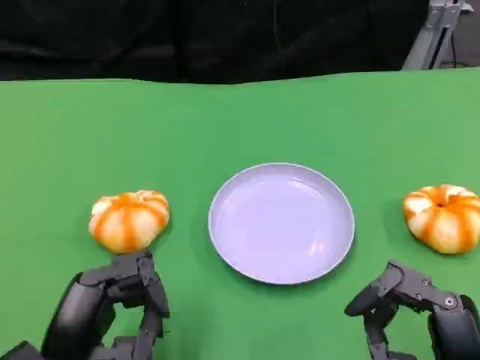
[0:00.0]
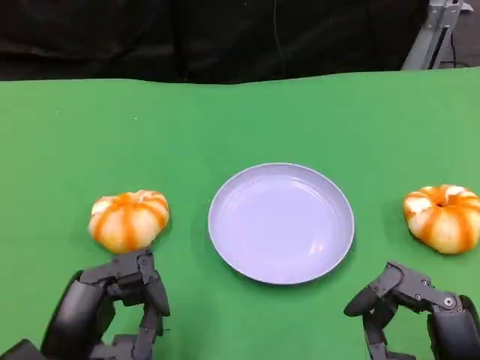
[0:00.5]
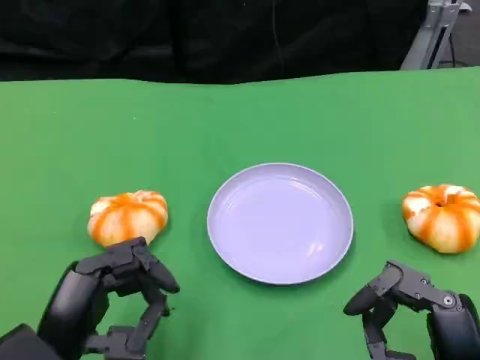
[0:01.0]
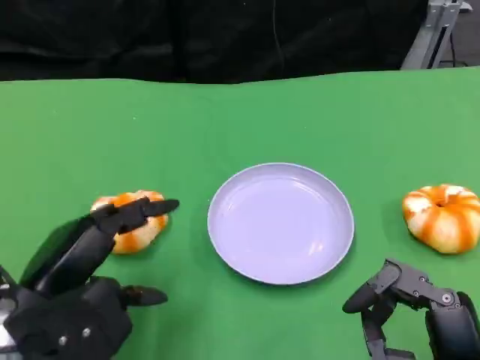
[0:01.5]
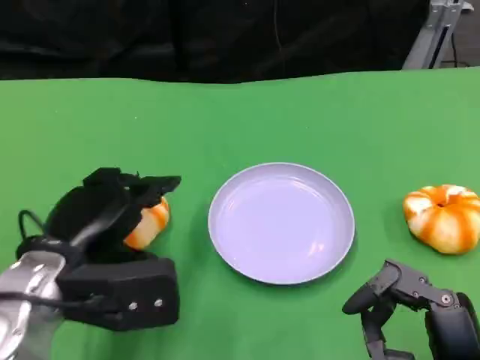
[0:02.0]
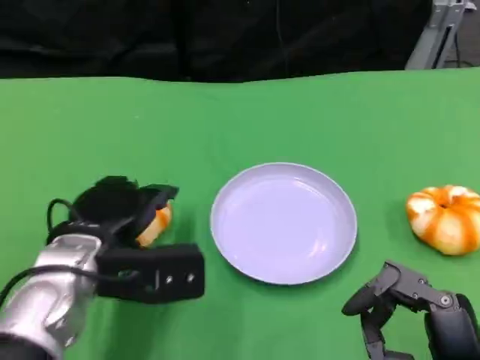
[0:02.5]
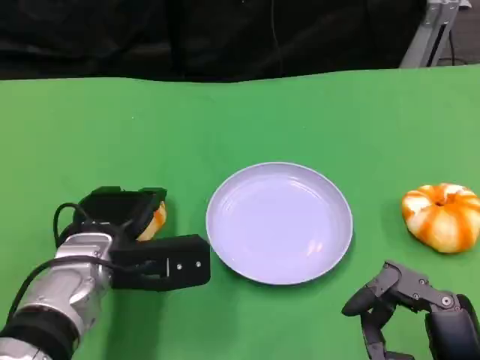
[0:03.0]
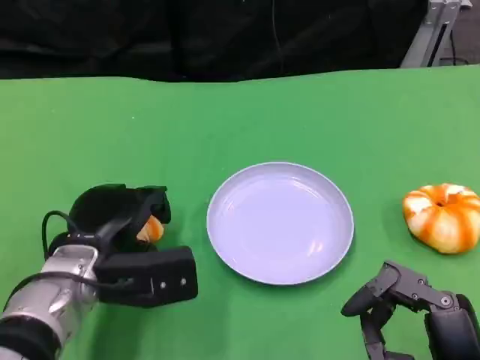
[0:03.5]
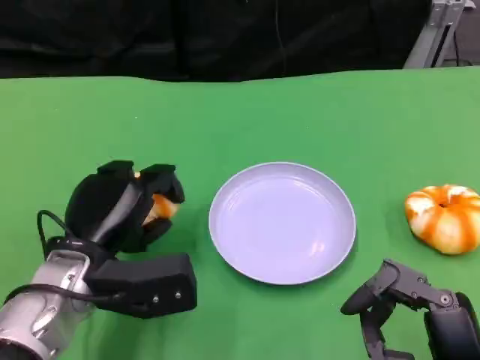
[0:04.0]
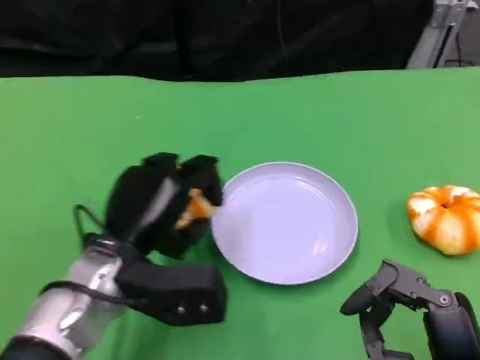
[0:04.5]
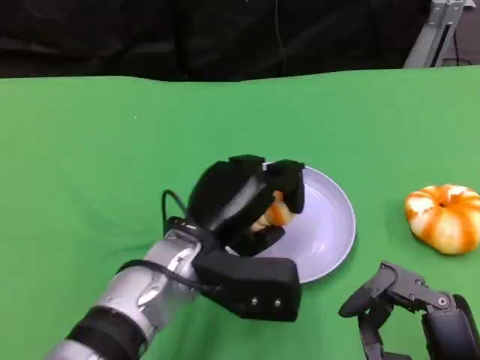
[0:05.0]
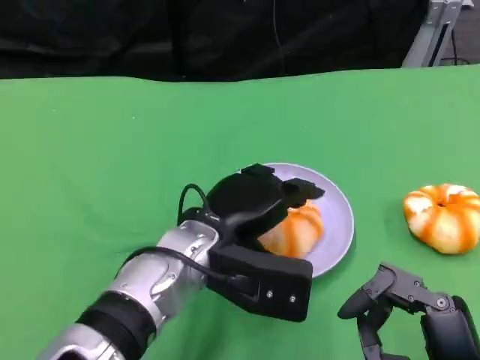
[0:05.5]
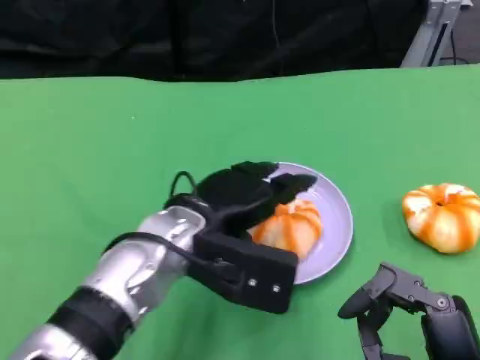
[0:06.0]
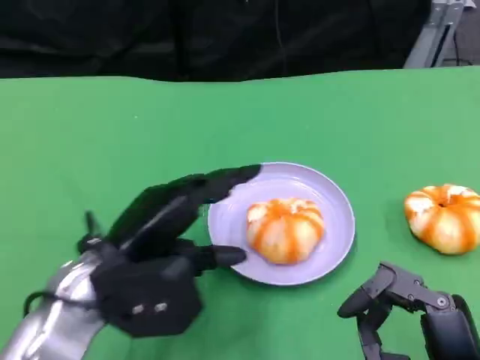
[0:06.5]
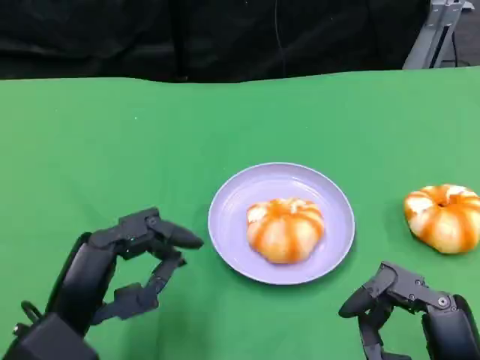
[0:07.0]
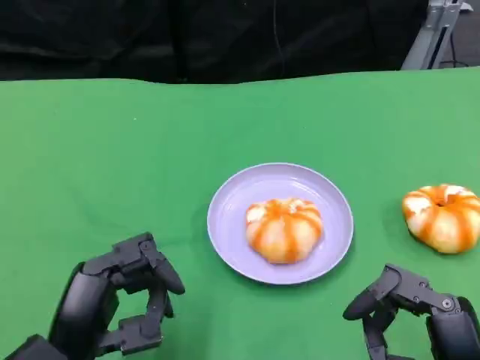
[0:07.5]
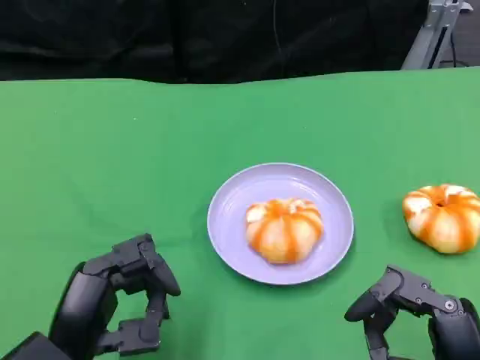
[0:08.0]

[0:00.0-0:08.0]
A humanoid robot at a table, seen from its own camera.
Task of the whole recording: Grasp the bread from the table and place it into the plate.
0:00.0 to 0:02.0: The left hand travels forward and upward by some 10 cm.
0:04.0 to 0:06.0: The left hand is displaced to the right by about 10 cm.
0:06.0 to 0:08.0: The left hand shifts some 15 cm backward, to the left and downward.

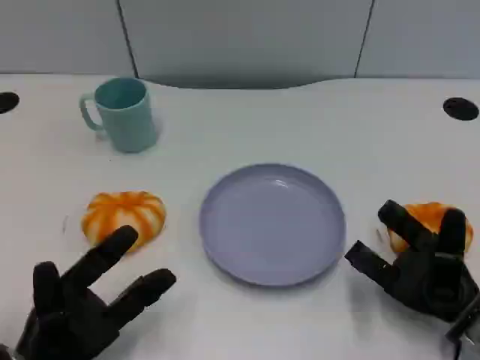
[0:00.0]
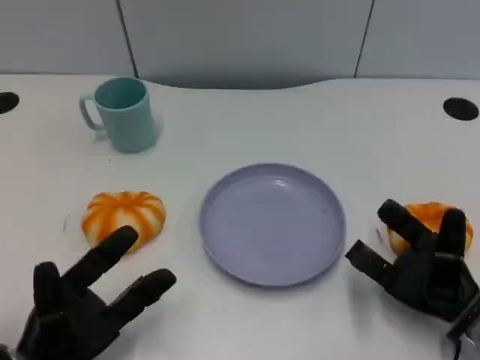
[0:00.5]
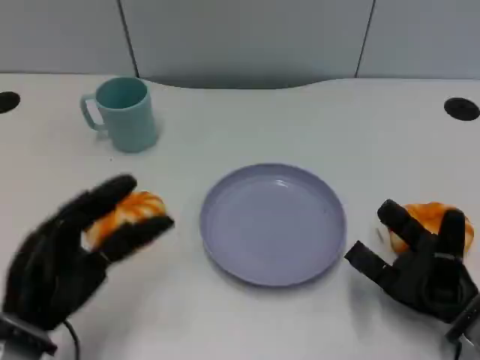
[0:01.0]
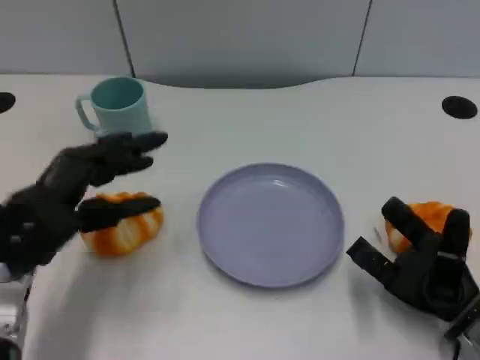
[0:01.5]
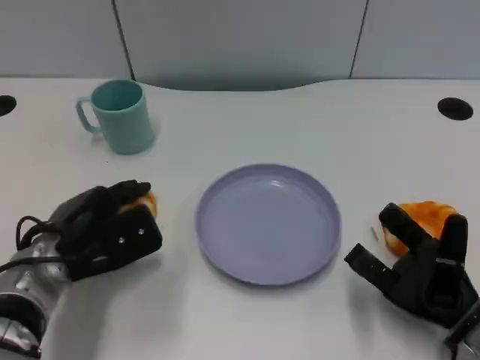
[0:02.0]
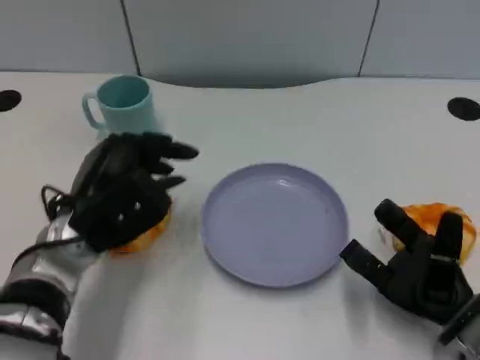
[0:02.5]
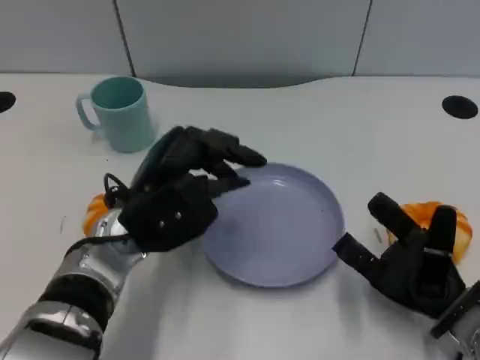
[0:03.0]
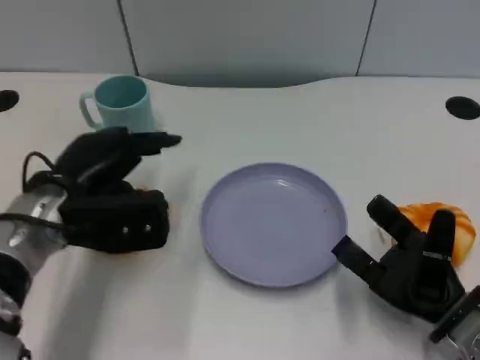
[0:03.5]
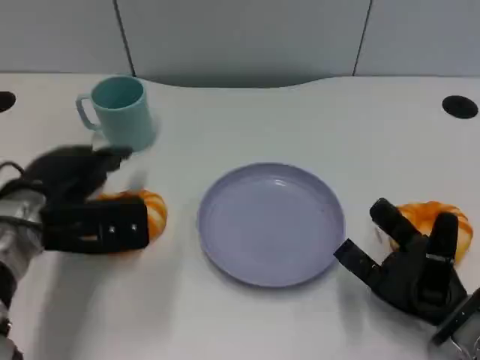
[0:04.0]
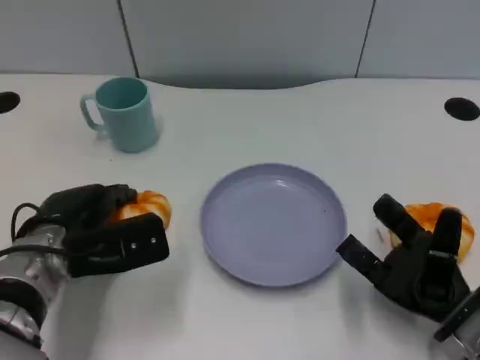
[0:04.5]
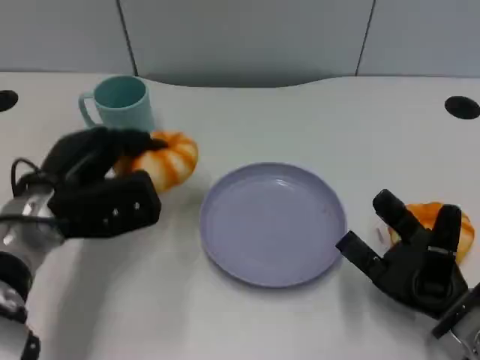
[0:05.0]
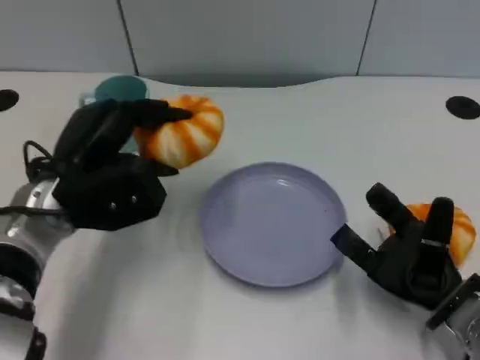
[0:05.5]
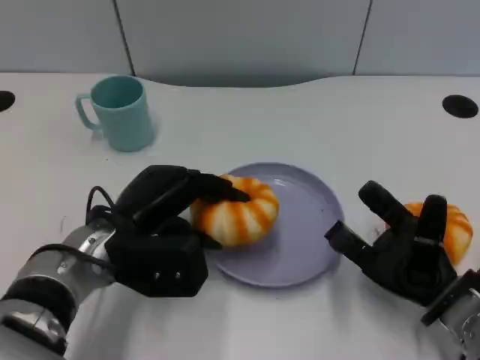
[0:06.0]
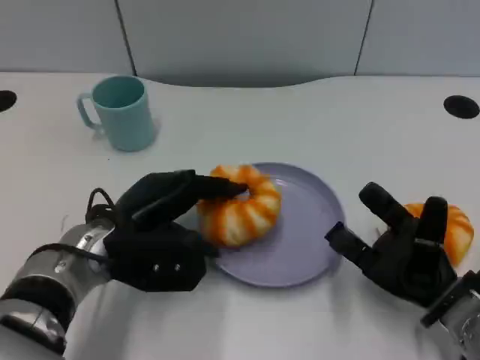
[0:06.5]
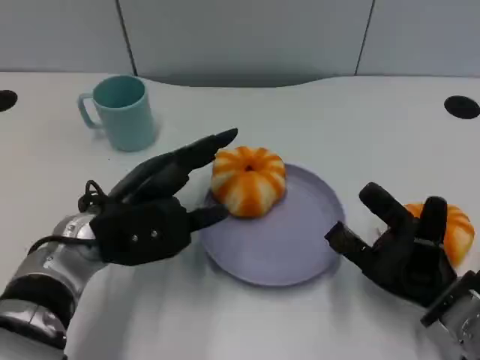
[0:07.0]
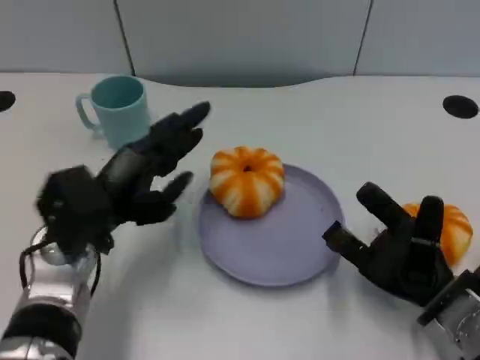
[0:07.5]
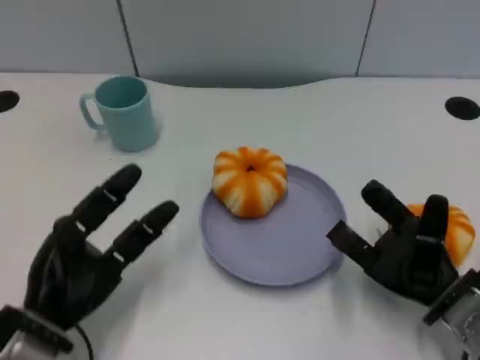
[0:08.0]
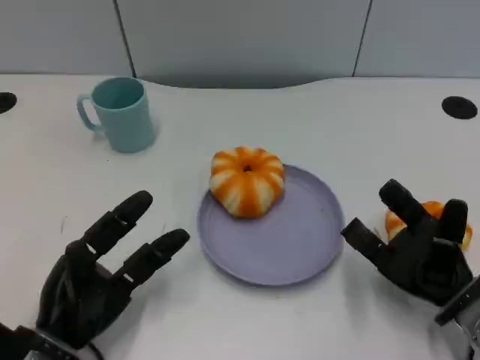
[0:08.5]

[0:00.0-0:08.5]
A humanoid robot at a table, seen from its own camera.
Task of the whole recording: Grasp the bread from the table and place it into the plate.
0:00.0 to 0:02.0: The left hand shifts approximately 10 cm forward.
0:02.0 to 0:04.0: The left hand reaches some 10 cm to the right, then returns.
0:04.0 to 0:06.5: The left hand heads to the right, covering roughly 5 cm.
0:06.5 to 0:08.5: The left hand heads backward, to the left and downward, covering some 15 cm.

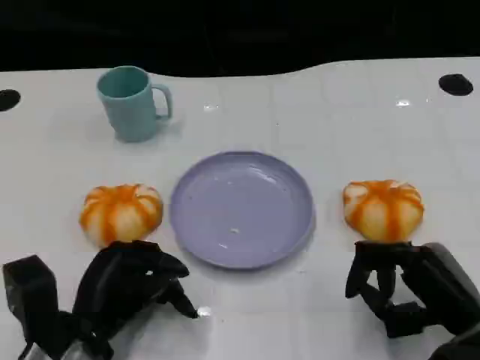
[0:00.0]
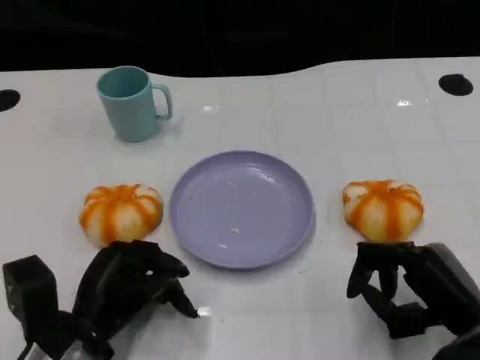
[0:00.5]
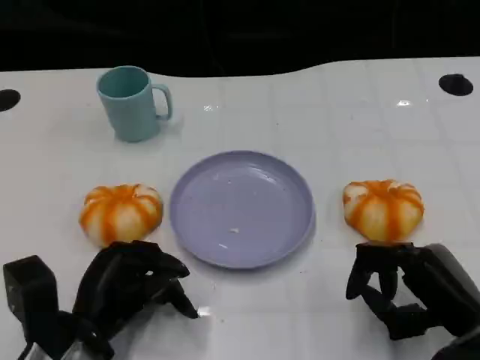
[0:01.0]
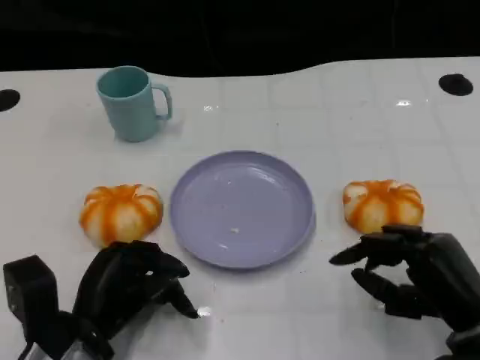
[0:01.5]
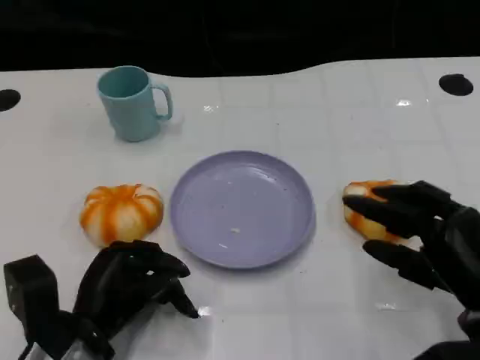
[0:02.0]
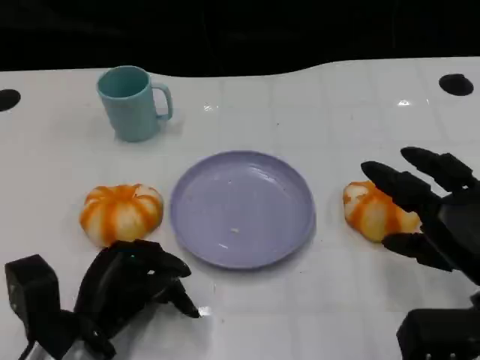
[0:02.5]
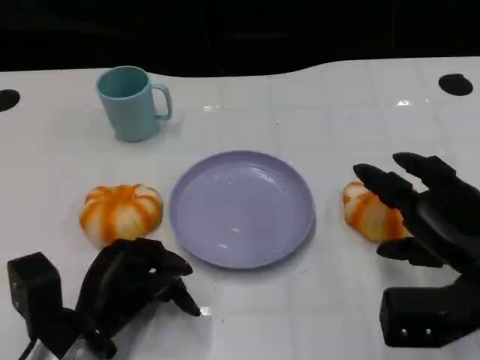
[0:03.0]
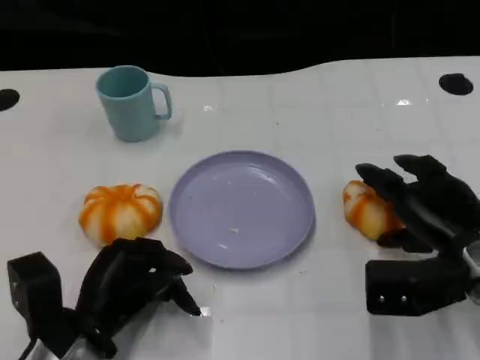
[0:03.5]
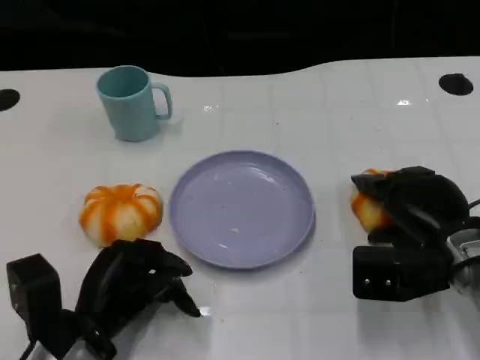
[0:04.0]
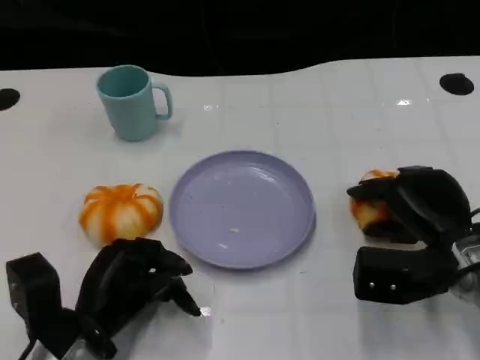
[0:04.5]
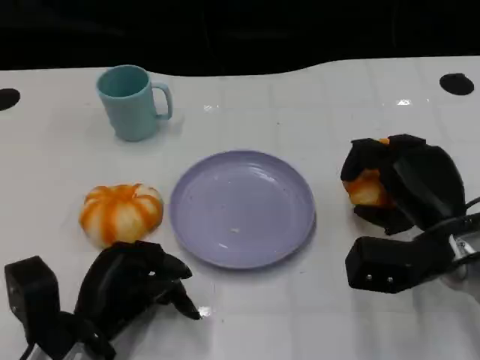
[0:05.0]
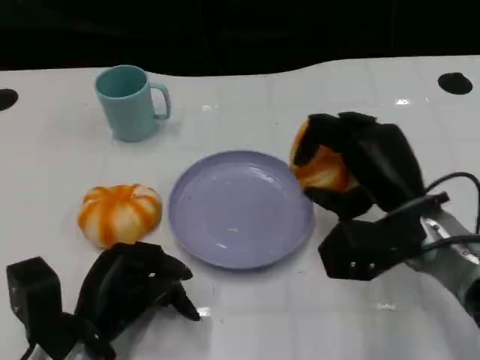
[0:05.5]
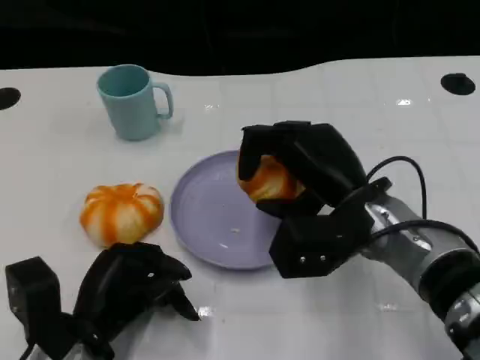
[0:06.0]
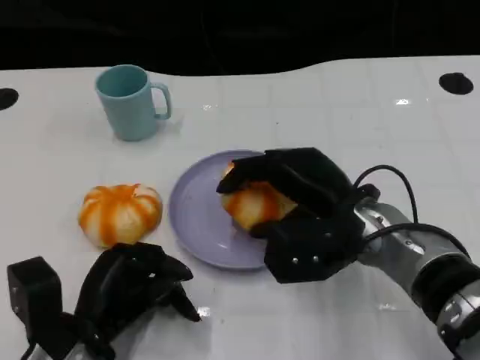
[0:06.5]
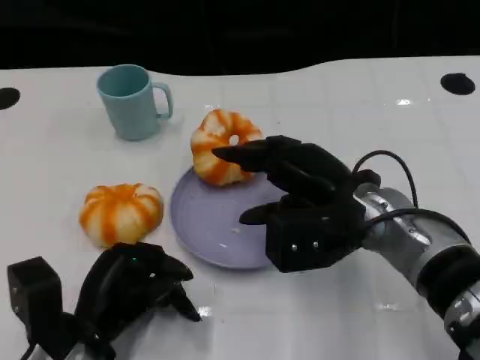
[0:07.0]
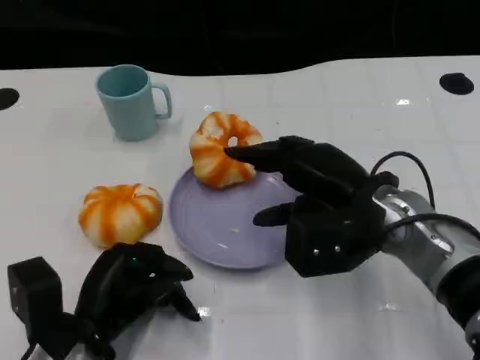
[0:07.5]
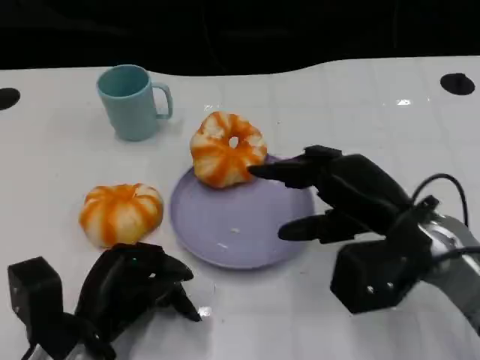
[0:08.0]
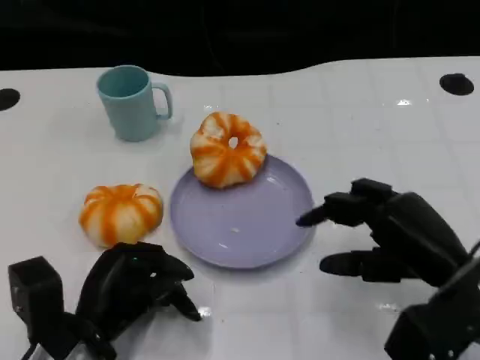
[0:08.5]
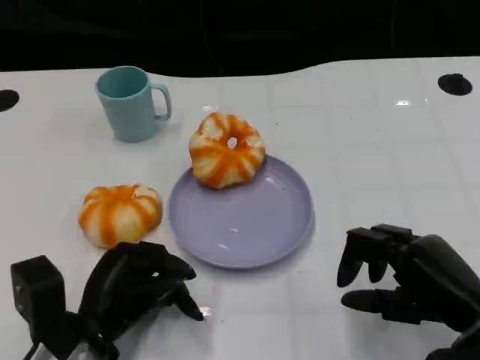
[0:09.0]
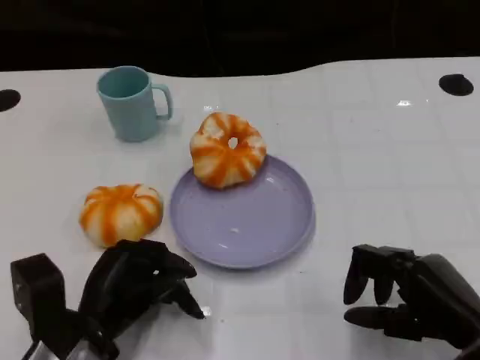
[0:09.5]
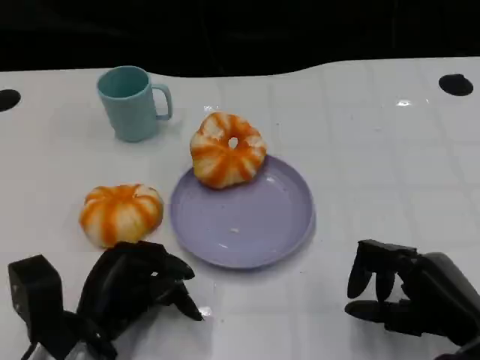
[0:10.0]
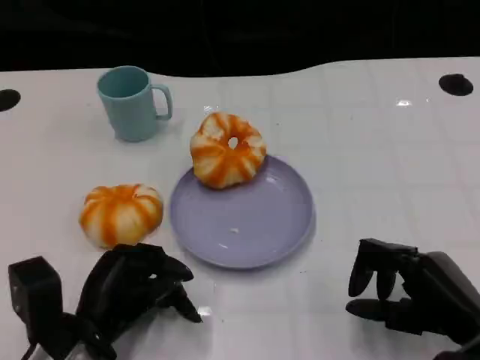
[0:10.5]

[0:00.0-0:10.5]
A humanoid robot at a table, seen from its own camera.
Task of the whole recording: Grasp the bread from the table and place it into the plate.
0:02.0 to 0:04.0: The right hand travels forward by roughly 10 cm.
0:04.0 to 0:06.5: The right hand moves to the left, about 10 cm.
0:06.5 to 0:08.5: The right hand shifts roughly 15 cm to the right and backward.
0:08.5 to 0:10.5: The right hand changes place by about 5 cm.
